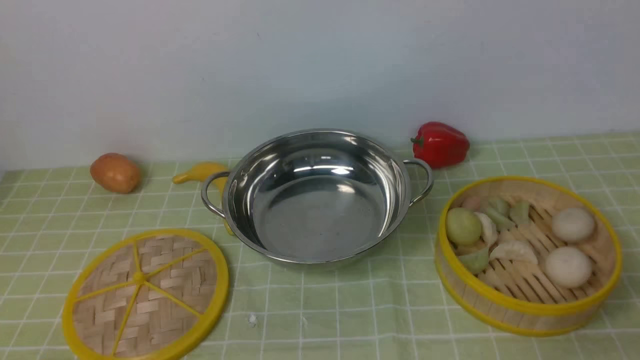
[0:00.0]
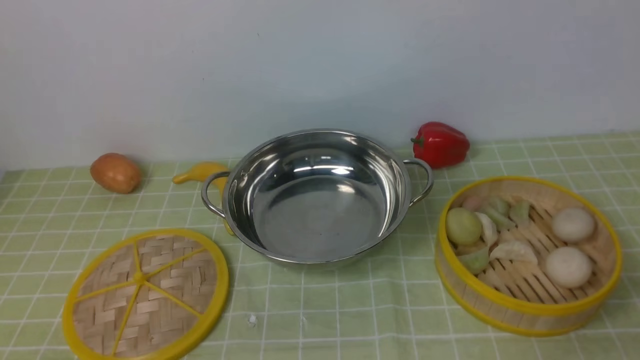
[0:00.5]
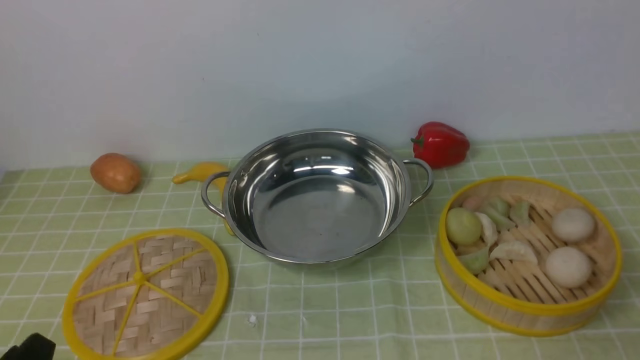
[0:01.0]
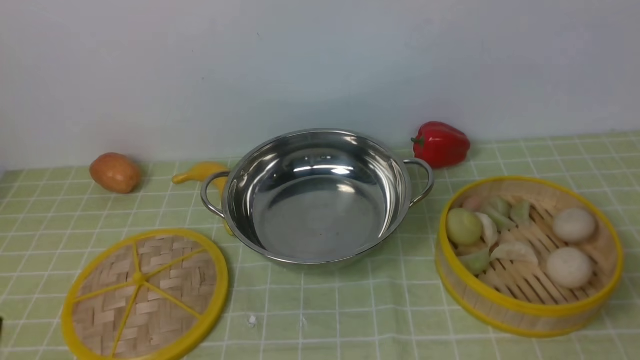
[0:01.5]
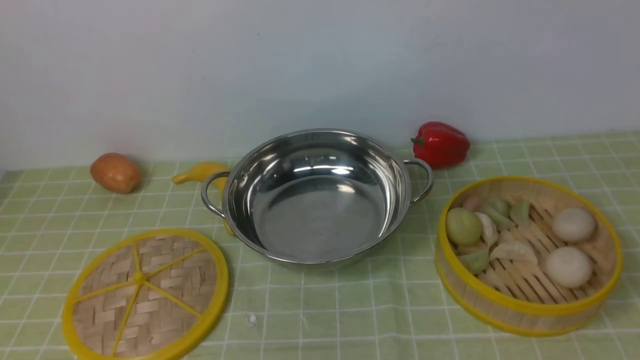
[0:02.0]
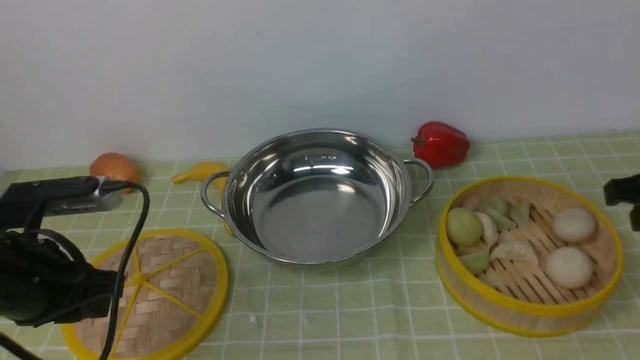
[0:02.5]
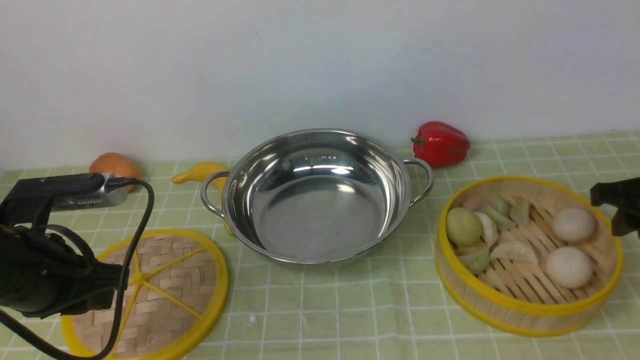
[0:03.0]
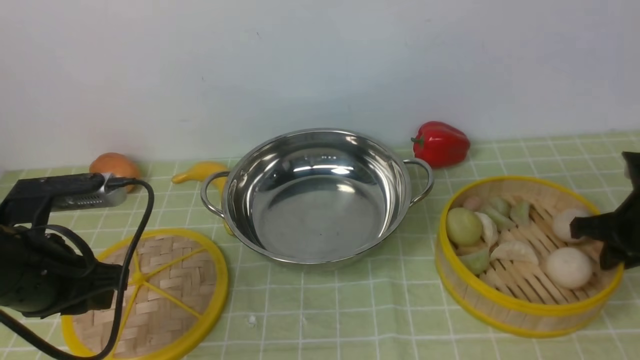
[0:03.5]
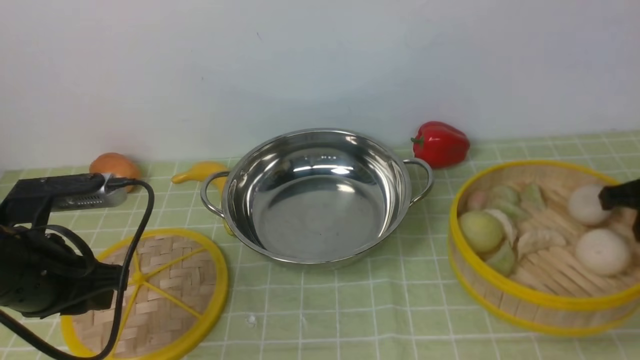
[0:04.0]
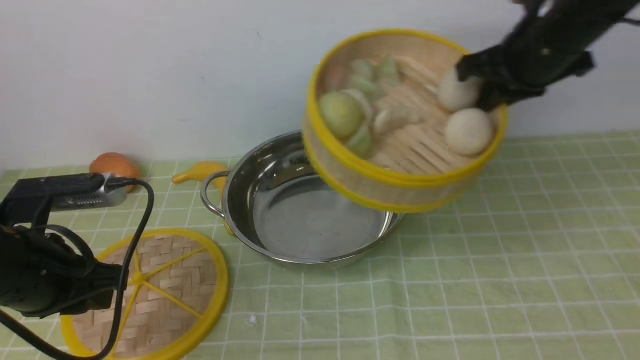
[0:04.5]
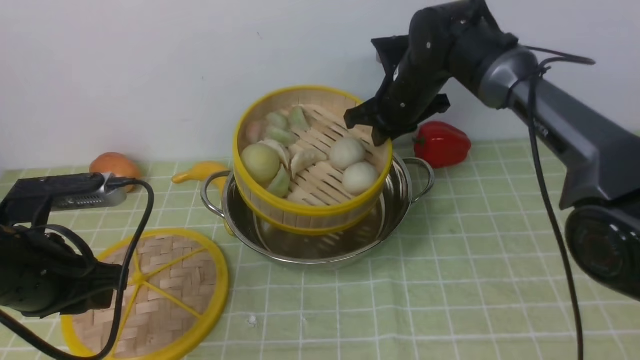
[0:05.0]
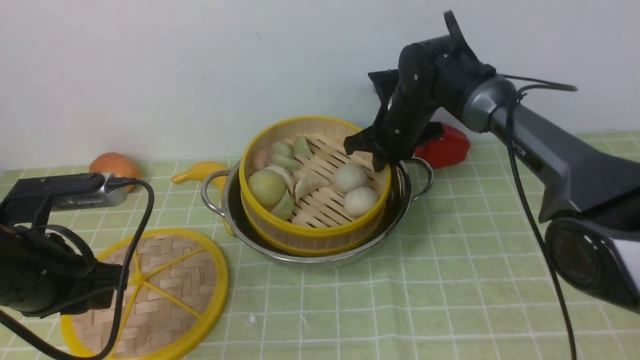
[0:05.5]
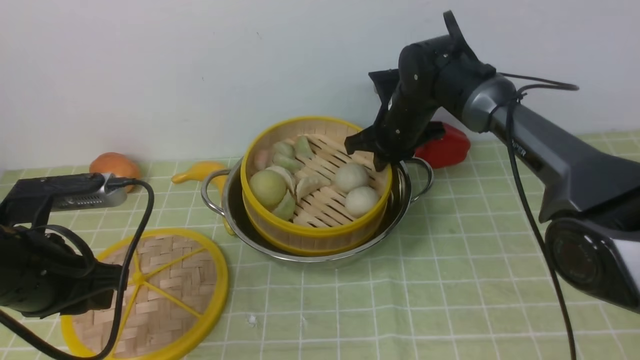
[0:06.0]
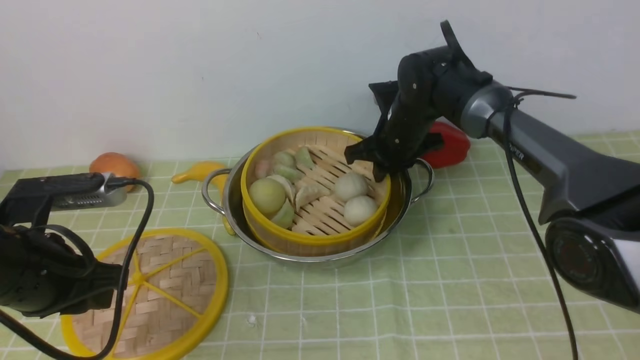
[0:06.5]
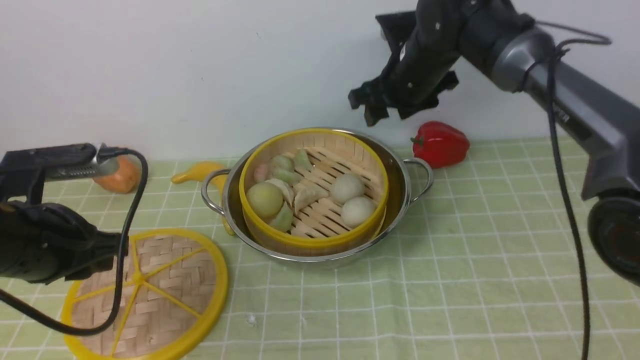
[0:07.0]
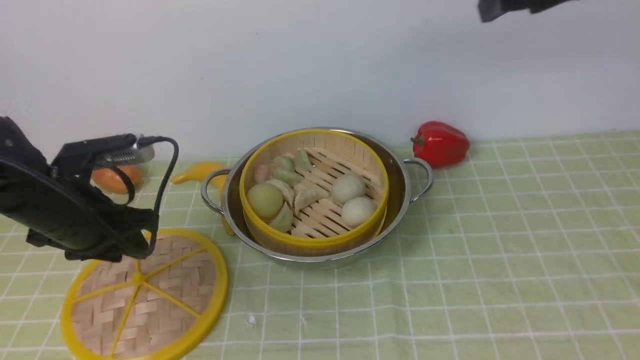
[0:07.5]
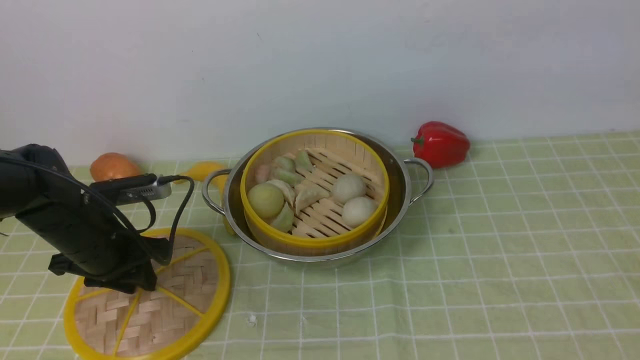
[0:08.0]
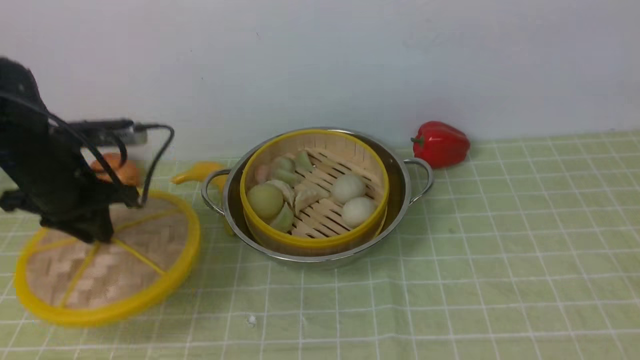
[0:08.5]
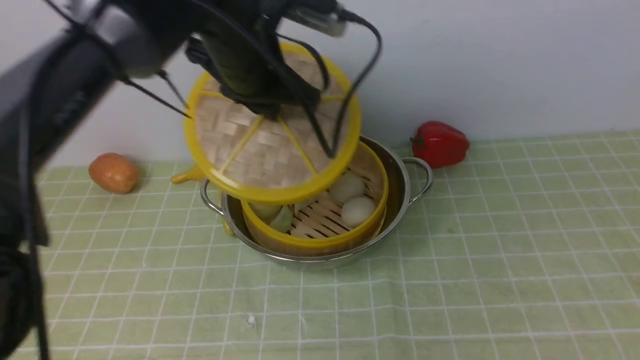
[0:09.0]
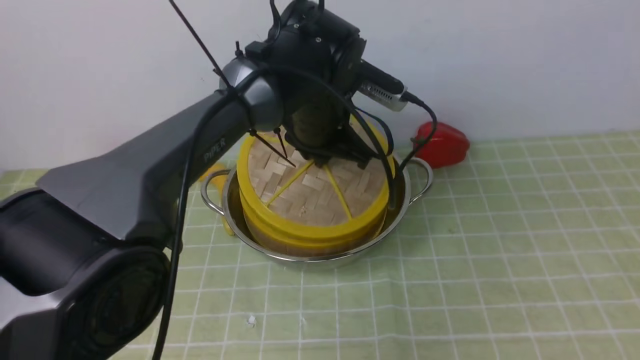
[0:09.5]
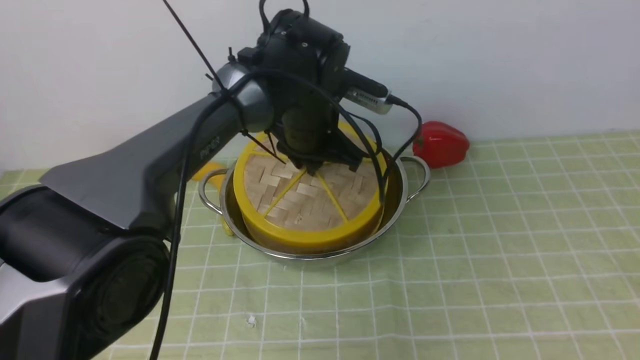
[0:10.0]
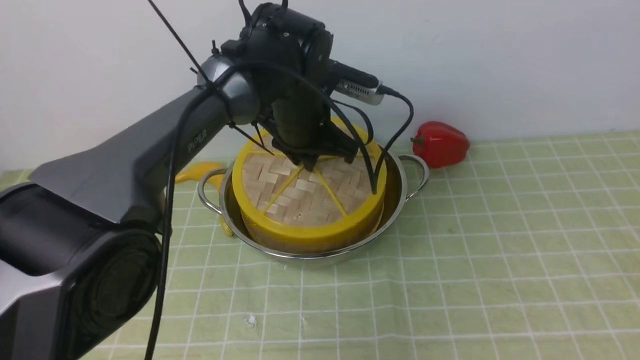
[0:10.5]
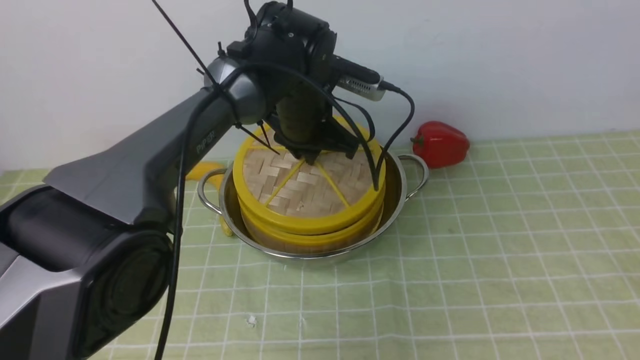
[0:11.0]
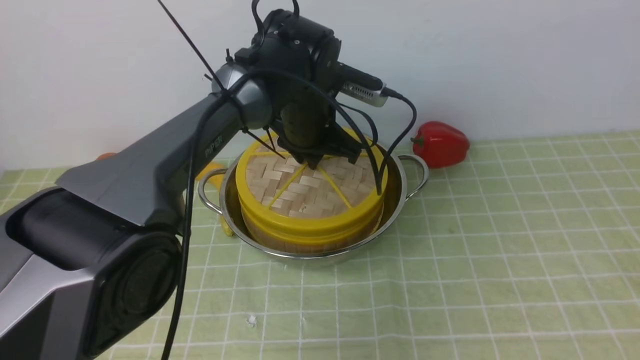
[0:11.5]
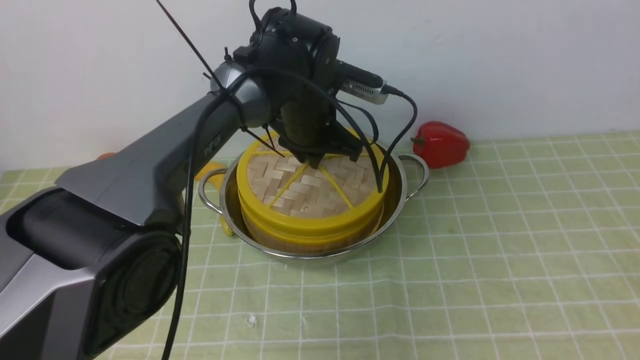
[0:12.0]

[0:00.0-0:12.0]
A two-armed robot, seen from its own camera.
Task of the whole recording: place the steamer in the pot on the green tablecloth, and put the lid on the steamer.
Step, 0:00.0 to 0:04.0: use the right arm to lift the steamer closest to it.
Step, 0:04.5 to 0:07.0: use the right arm to put the steamer into the iron steamer pot in the middle.
Step, 0:07.5 to 0:08.5: use the left arm to lift the lid of the steamer.
0:02.0 to 0:04.0: The right gripper shifts some 30 cm forward and downward, and closes up, while the left gripper shifts roughly 20 cm forward and downward.
0:04.0 to 0:06.0: The right gripper goes about 30 cm to the left and forward.
0:06.0 to 0:08.0: The left gripper heads forward and downward, covering approximately 15 cm; the right gripper travels upward, backward and to the right by about 40 cm, and opens its fingers.
0:08.0 to 0:10.0: The right gripper travels backward by roughly 10 cm, while the left gripper shifts approximately 25 cm to the right and forward, and closes.
0:10.0 to 0:12.0: The grippers move only a little.

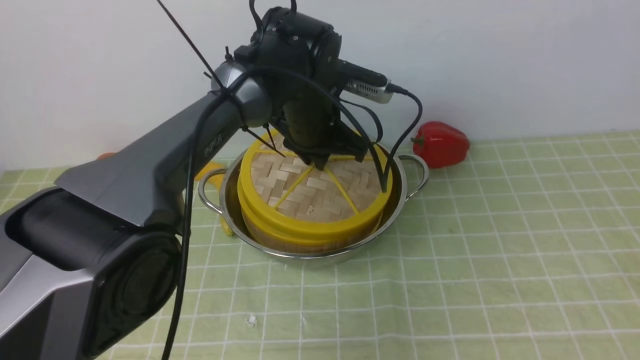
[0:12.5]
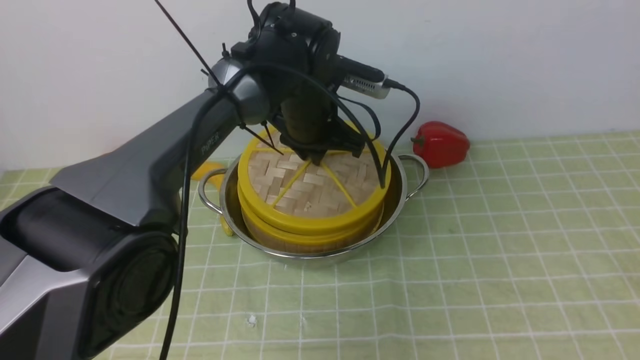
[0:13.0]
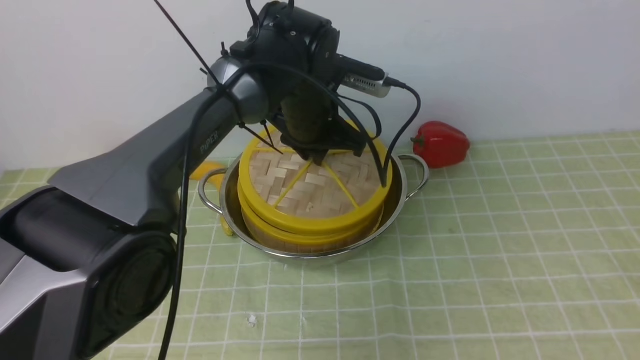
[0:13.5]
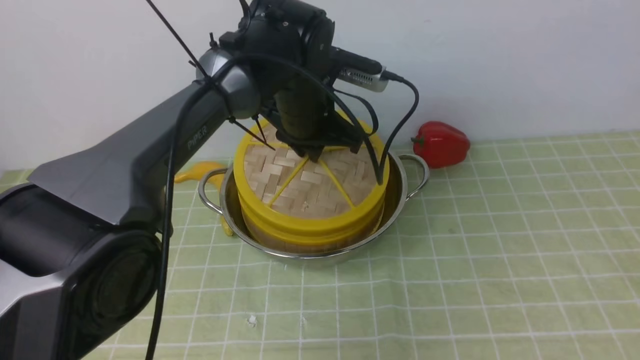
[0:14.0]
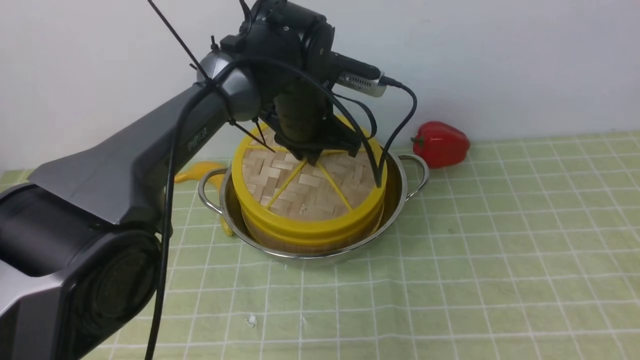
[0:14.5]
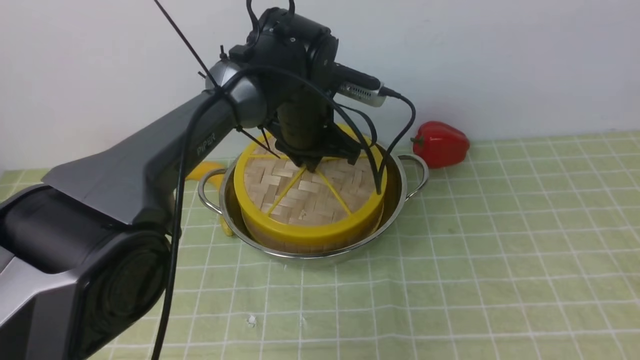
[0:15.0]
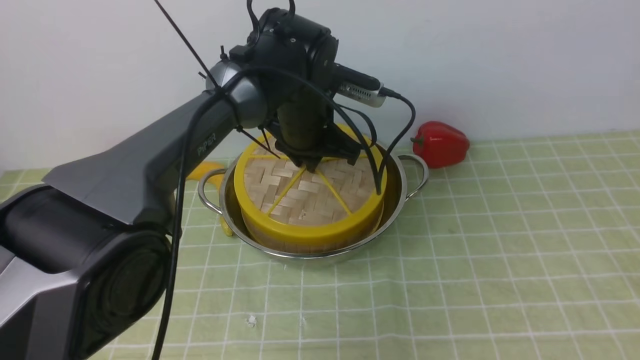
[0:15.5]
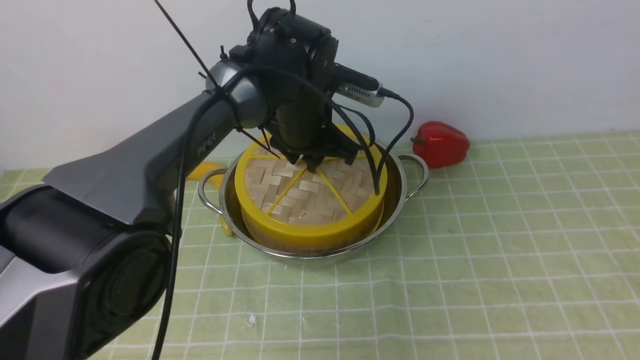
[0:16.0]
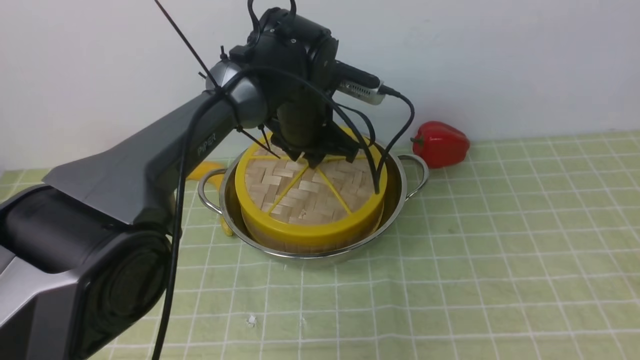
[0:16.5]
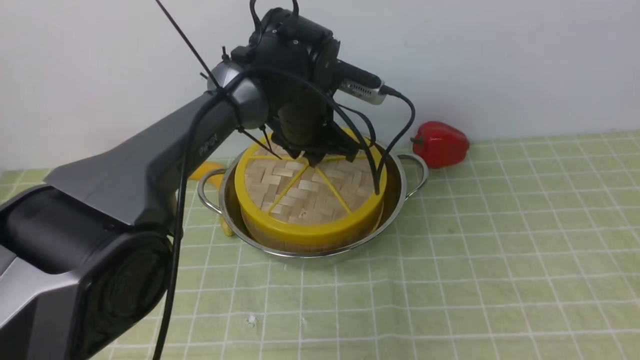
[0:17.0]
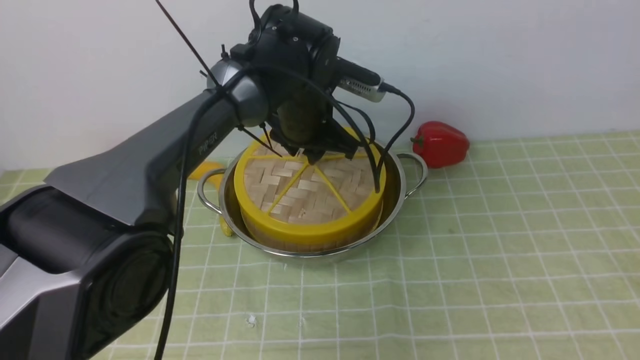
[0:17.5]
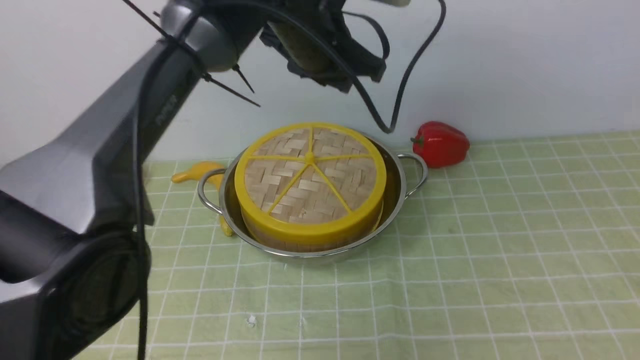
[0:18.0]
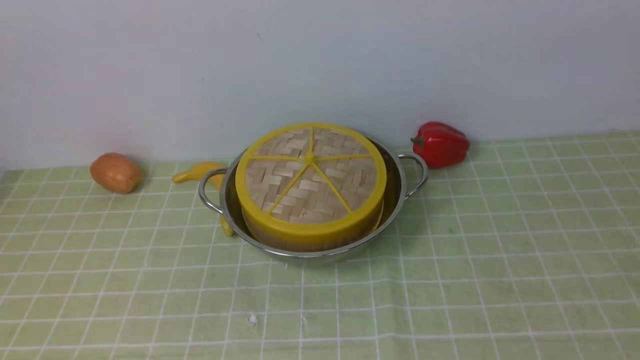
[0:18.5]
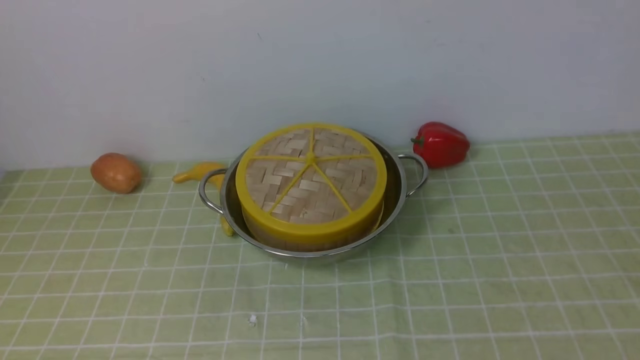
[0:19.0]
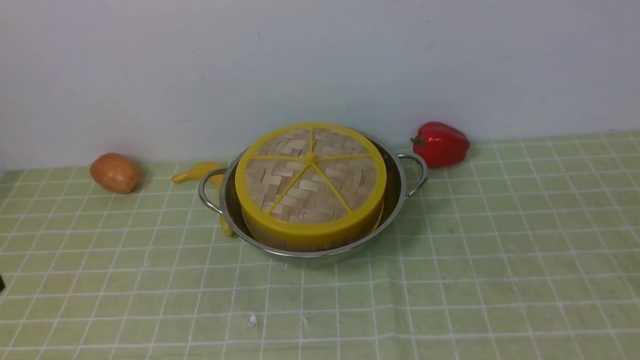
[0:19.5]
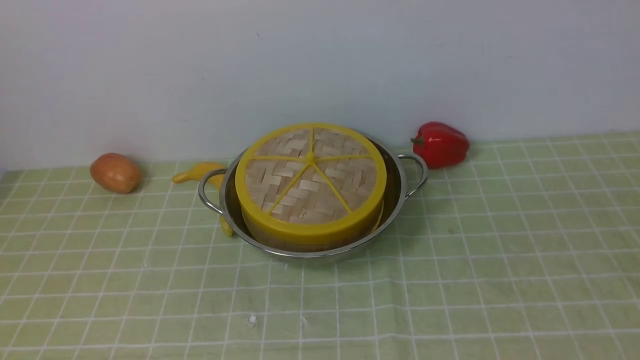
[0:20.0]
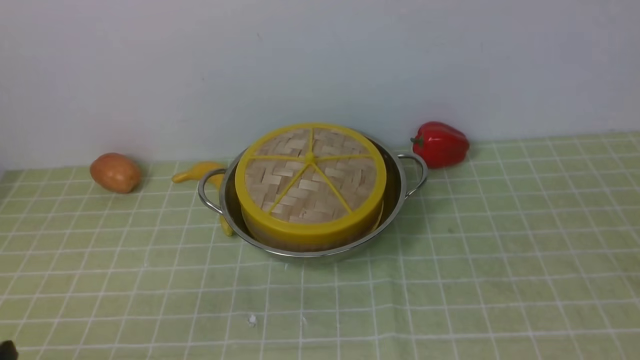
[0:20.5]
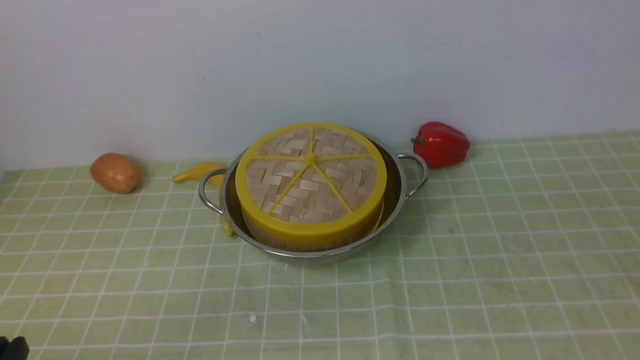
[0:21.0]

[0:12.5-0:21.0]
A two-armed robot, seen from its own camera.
Task of the whole recording: place the steamer in the pot on the green tablecloth, and put the lid on the steamer.
Step, 0:12.5 to 0:18.0: use the left arm to place the steamer lid on the steamer.
0:12.5 to 0:14.5: There are only small adjustments of the grippers.
0:14.5 to 0:16.5: The left gripper opens its fingers.
0:16.5 to 0:19.0: The left gripper shifts approximately 50 cm backward, upward and to the left, and closes up, while the right gripper is displaced downward by approximately 15 cm, and closes up.
